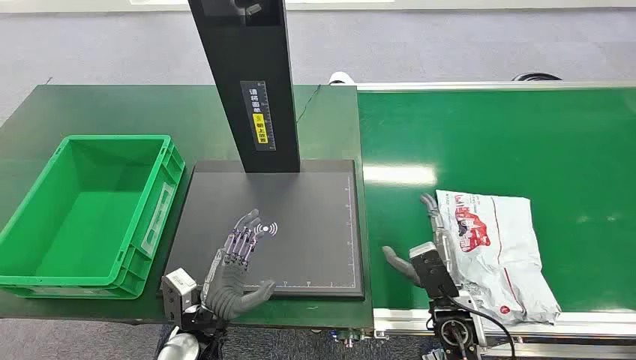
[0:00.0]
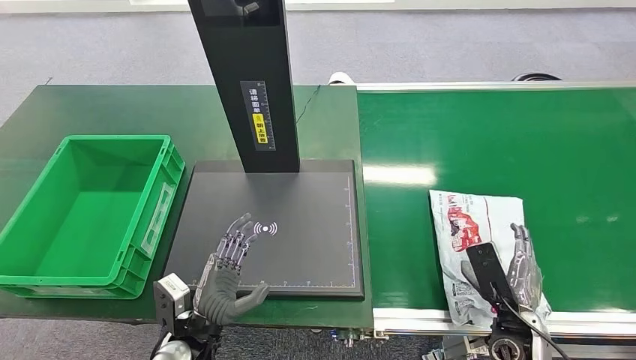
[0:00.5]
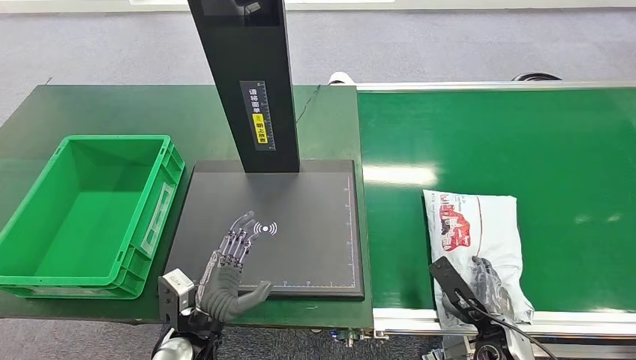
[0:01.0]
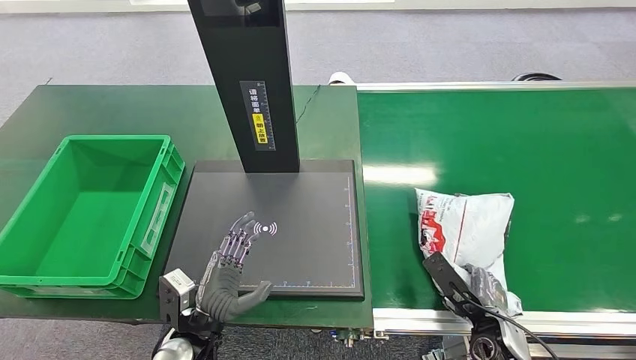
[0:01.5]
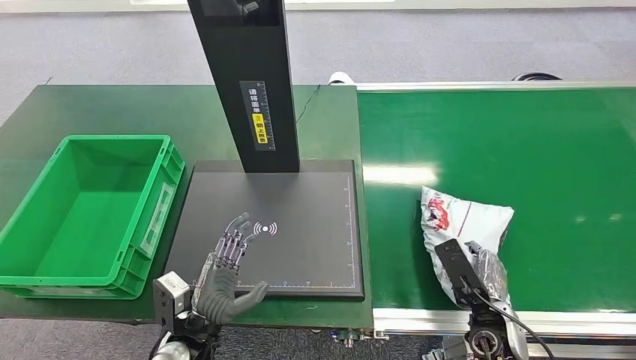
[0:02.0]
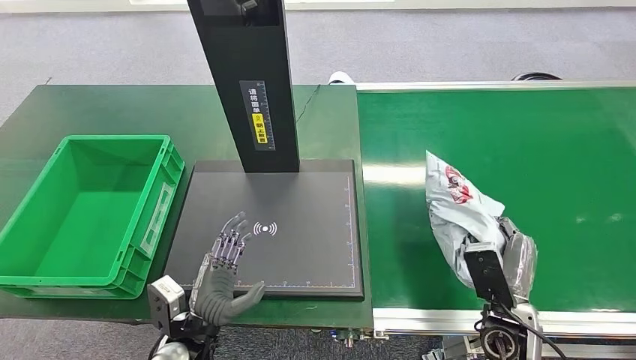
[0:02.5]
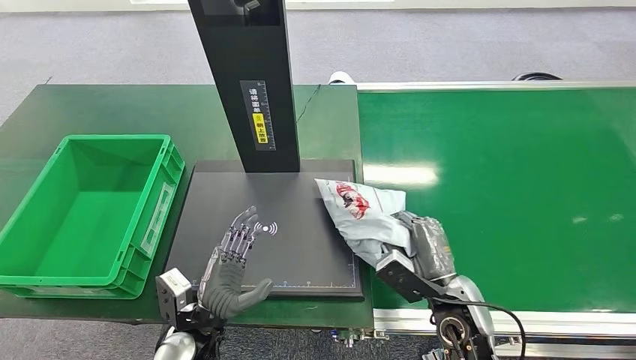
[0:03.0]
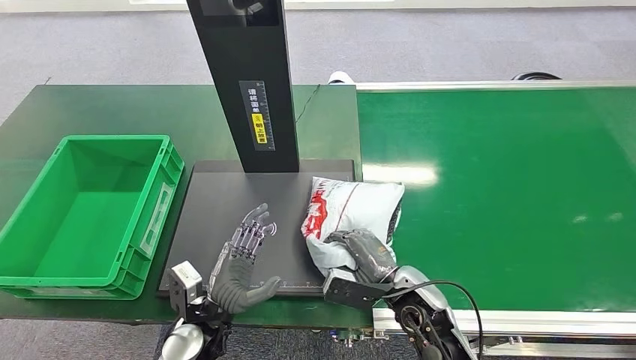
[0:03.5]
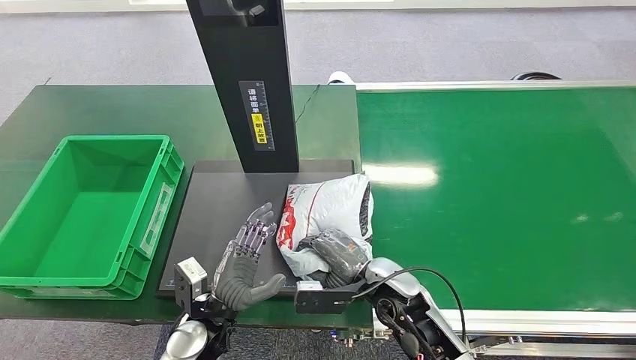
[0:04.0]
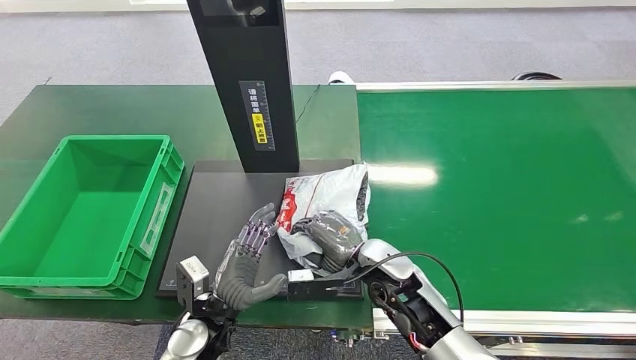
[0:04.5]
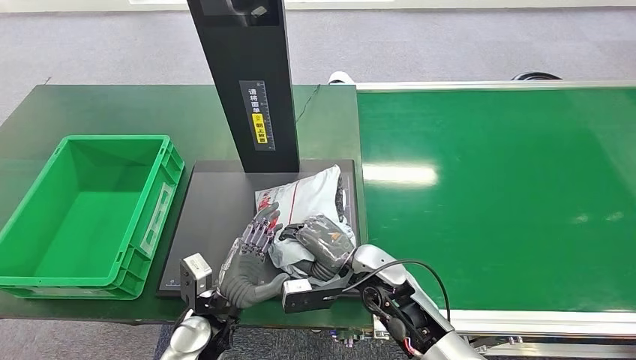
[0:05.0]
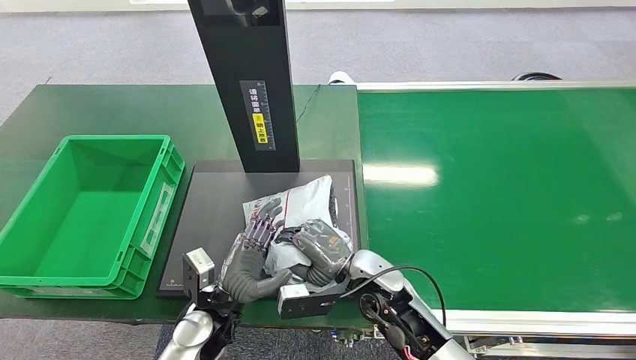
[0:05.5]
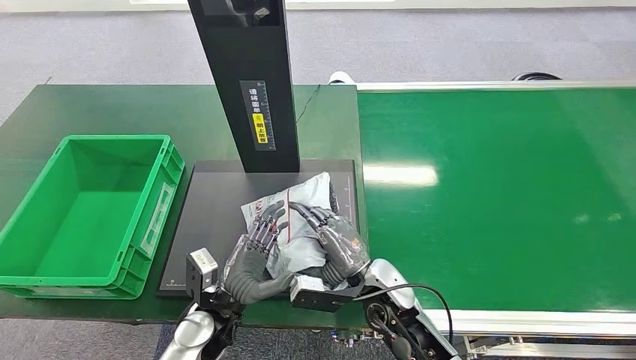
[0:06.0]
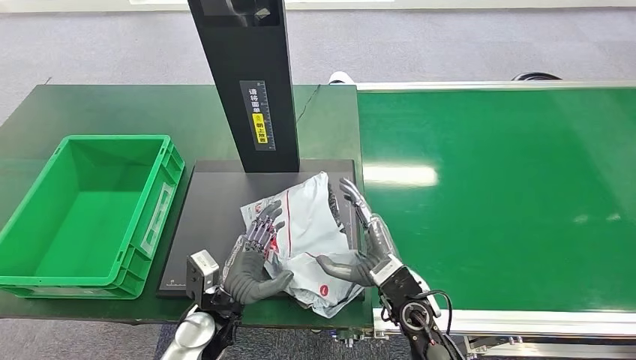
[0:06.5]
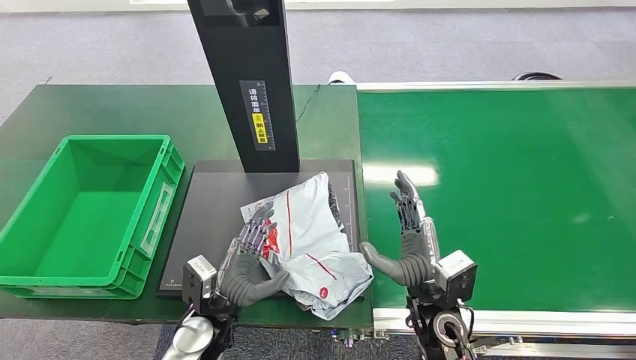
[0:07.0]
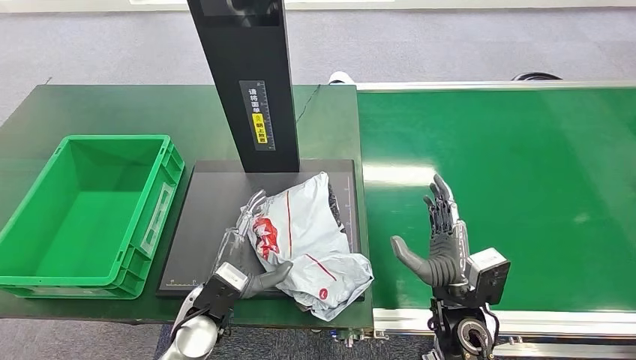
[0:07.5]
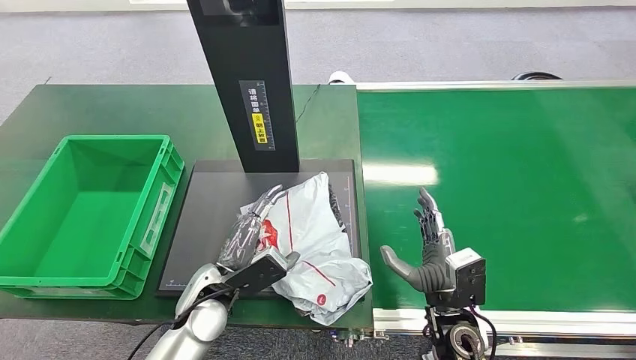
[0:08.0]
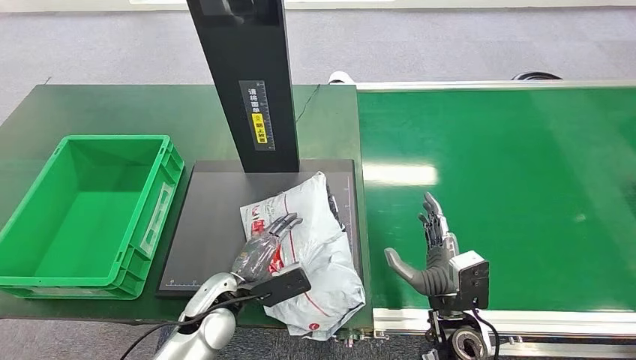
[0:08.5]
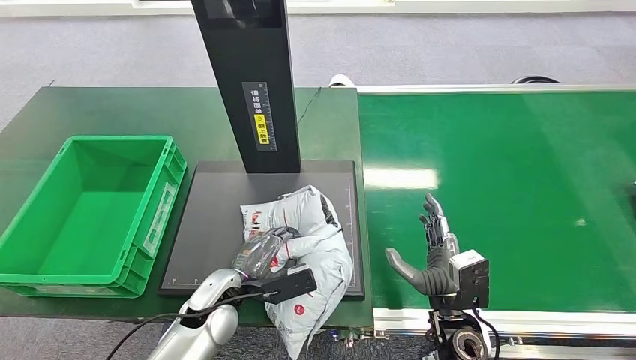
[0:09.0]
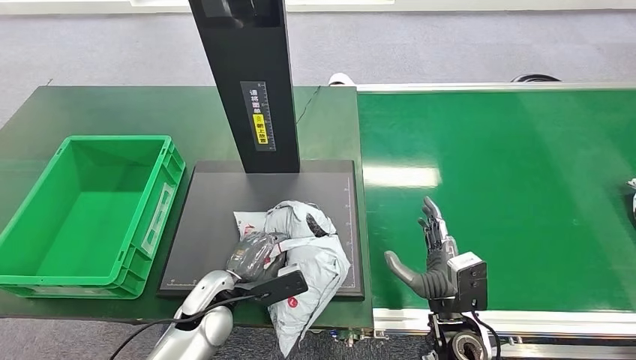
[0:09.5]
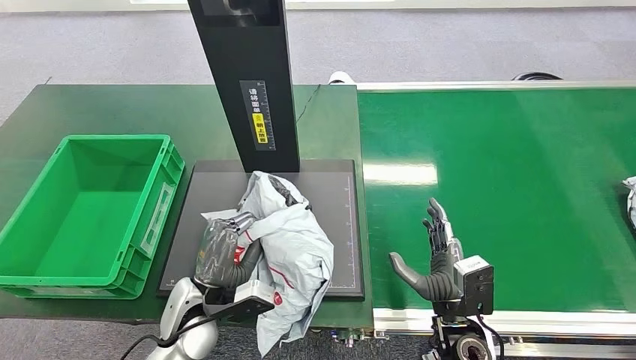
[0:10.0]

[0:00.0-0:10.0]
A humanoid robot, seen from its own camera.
Step, 0:00.0 to 0:02.5: Pick up the package from the conveyor belt.
Step, 0:03.0 to 0:07.0: Place the package onto the inbound machine.
0:02.0 to 0:04.0: The right hand heads to the left, covering roughly 15 cm.
0:04.0 to 0:06.0: The hands stay close to where they were, moving slightly.
0:06.0 to 0:08.0: The right hand moves to the right, about 10 cm.

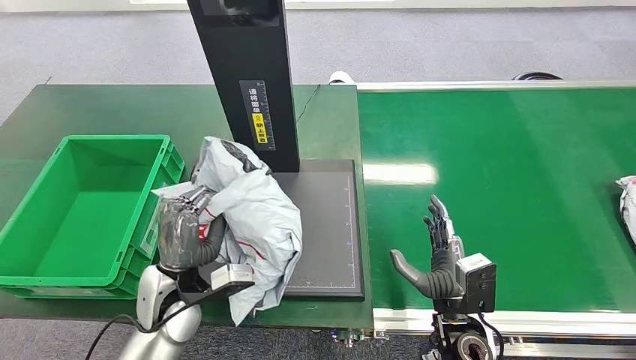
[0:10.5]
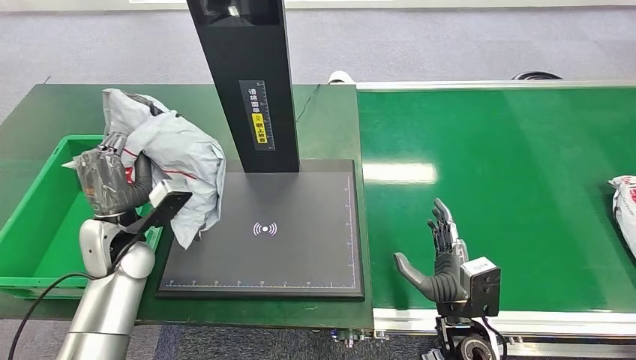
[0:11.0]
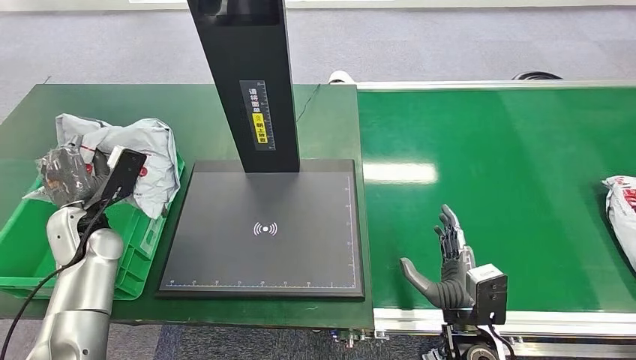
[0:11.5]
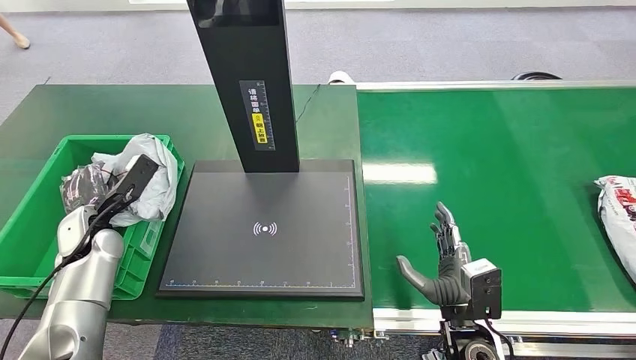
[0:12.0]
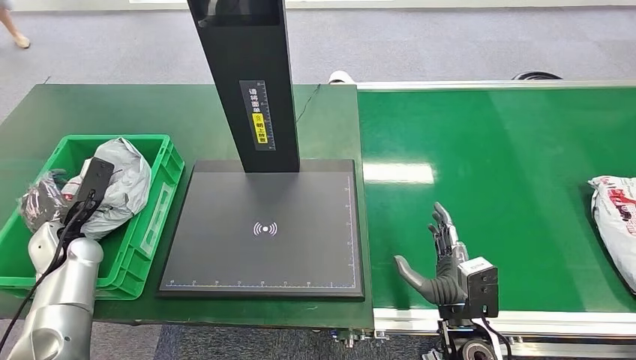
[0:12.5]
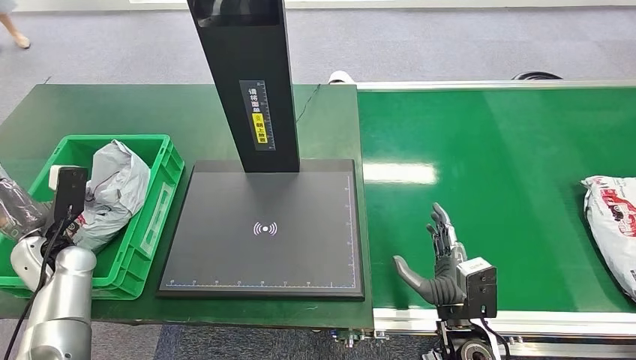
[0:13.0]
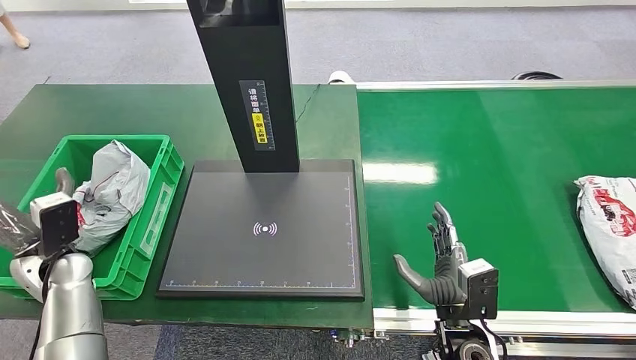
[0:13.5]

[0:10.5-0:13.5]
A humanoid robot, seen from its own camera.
Step, 0:11.0 to 0:13.5: Place the package into the parcel locker.
0:12.0 to 0:13.5: The left hand travels backward by roughly 5 cm.

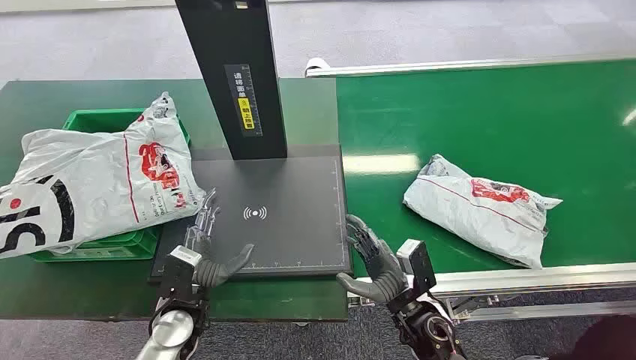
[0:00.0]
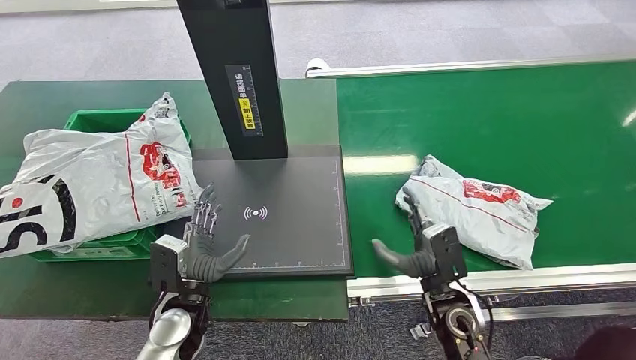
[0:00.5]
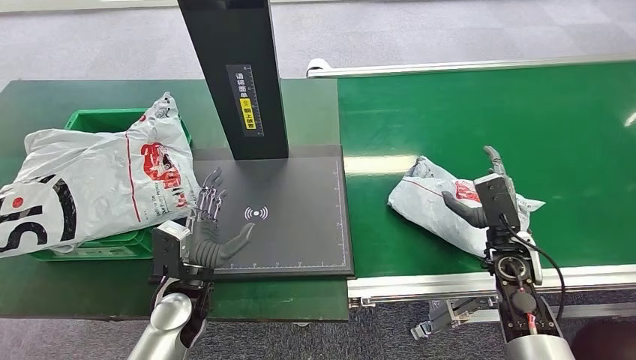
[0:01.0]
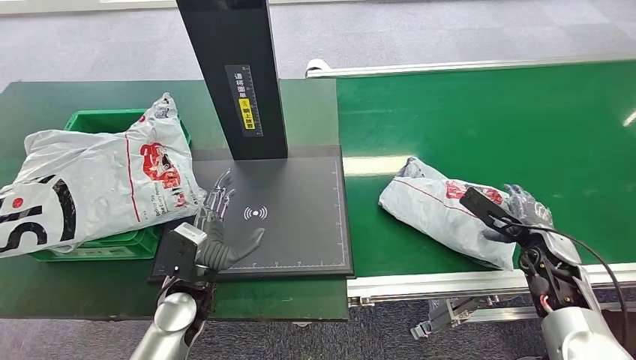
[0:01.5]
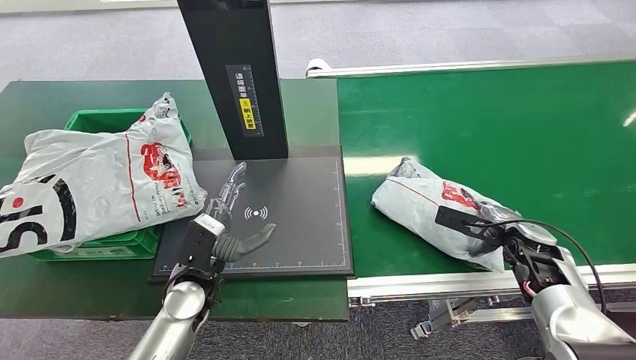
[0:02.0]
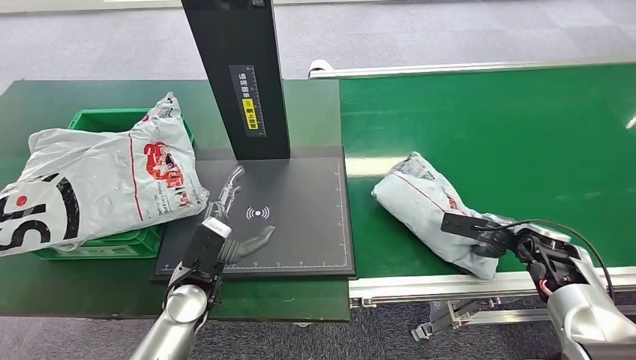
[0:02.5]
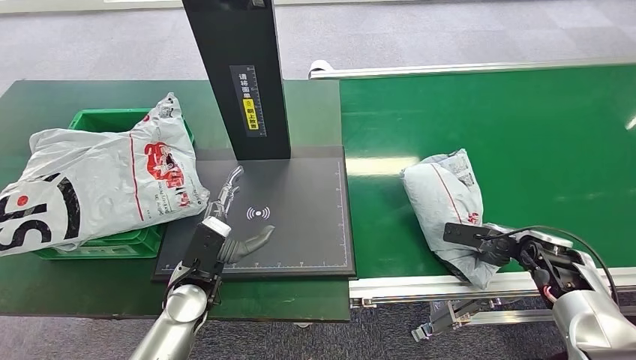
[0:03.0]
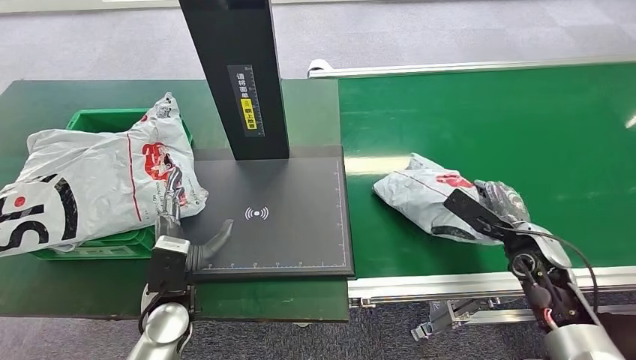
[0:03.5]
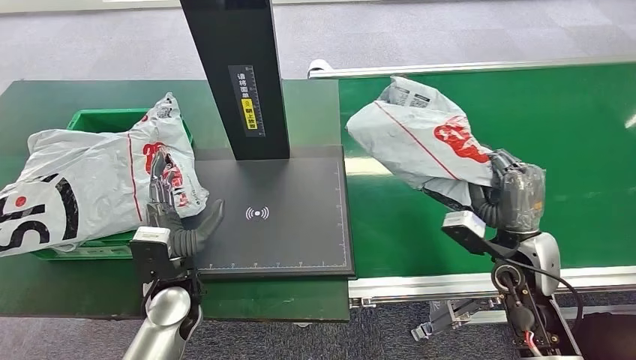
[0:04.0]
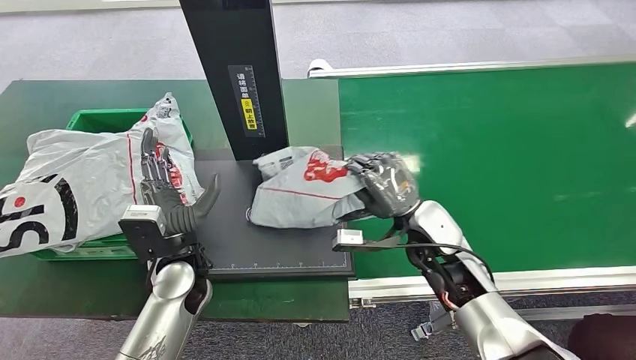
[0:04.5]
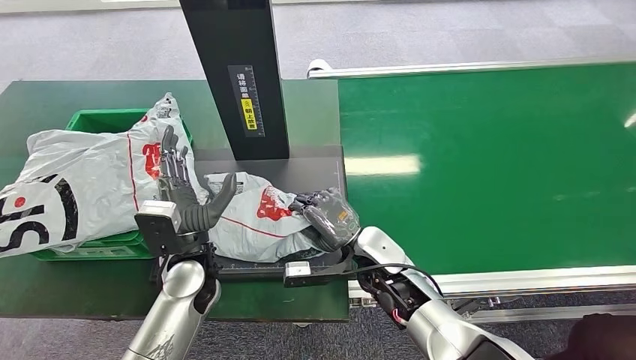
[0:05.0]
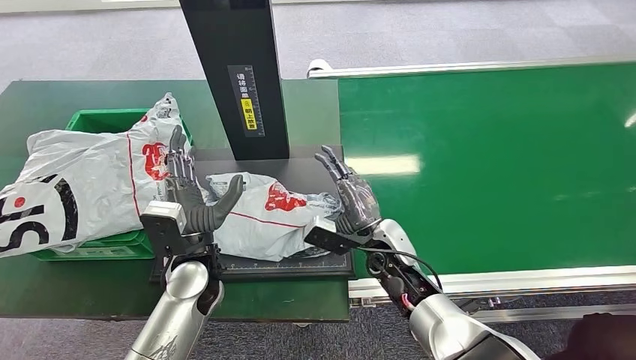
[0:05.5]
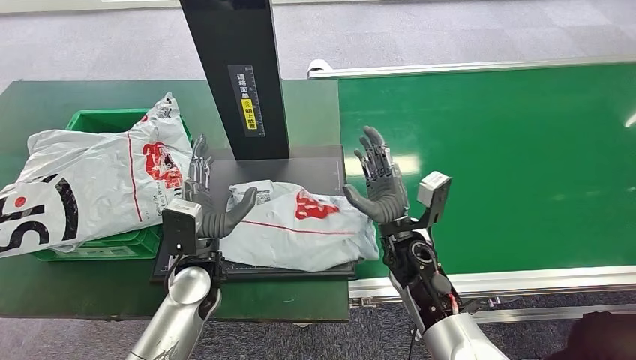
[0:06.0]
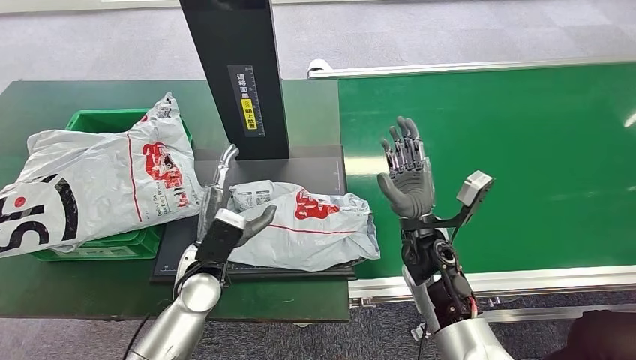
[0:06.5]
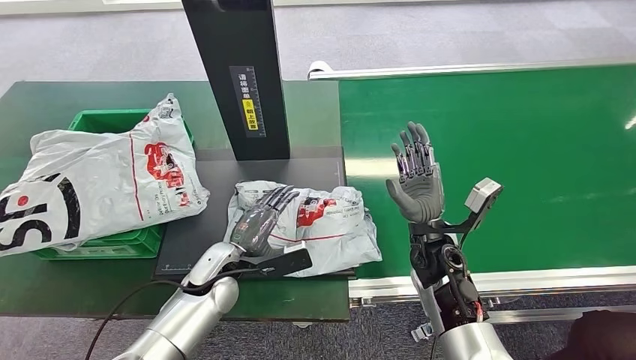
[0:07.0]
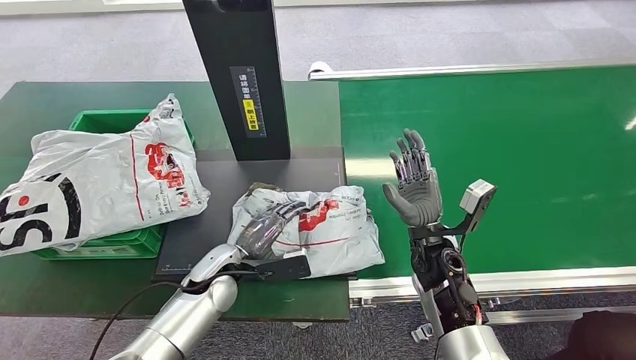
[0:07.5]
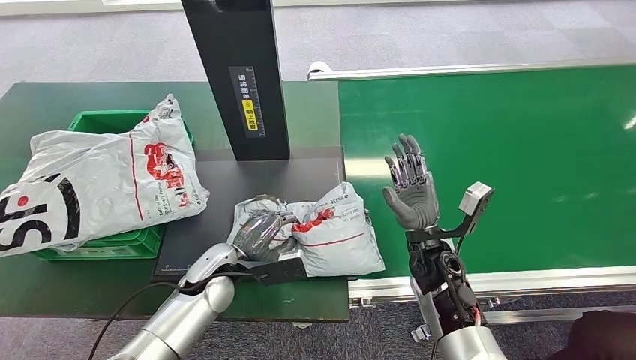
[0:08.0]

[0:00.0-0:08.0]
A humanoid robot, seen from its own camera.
Step, 0:00.0 to 0:04.0: Pick up the package from the conveyor belt.
Step, 0:04.5 to 0:07.0: Place the package onto the inbound machine.
0:06.0 to 0:08.0: The left hand travels downward by approximately 5 cm.
